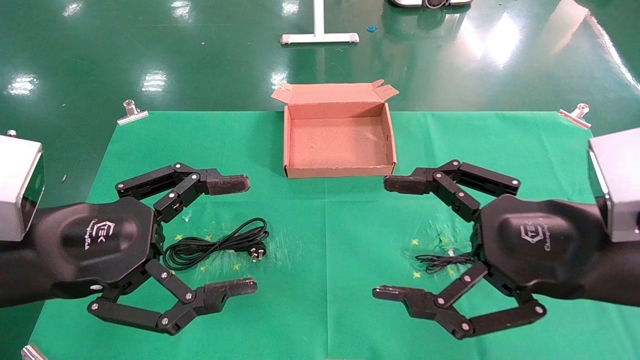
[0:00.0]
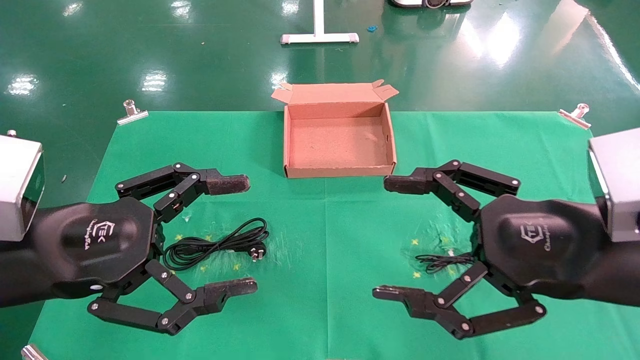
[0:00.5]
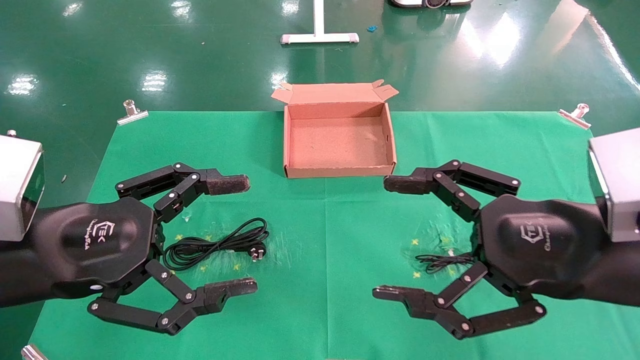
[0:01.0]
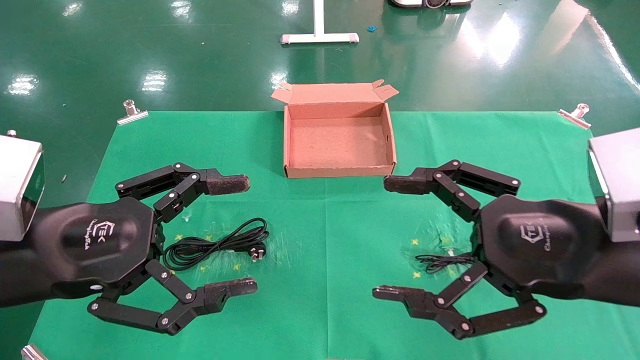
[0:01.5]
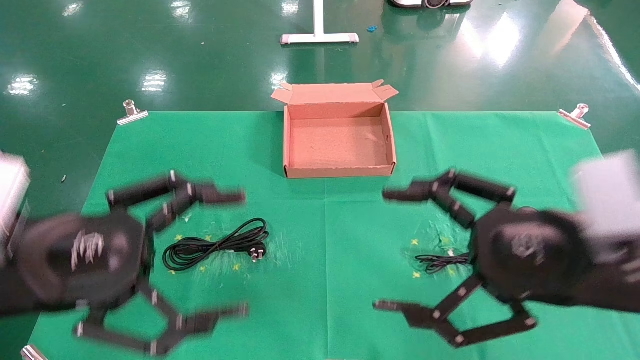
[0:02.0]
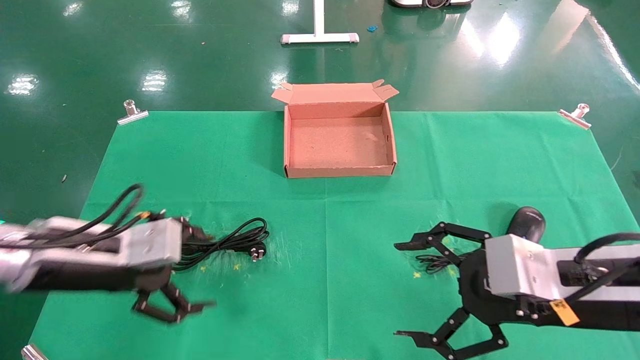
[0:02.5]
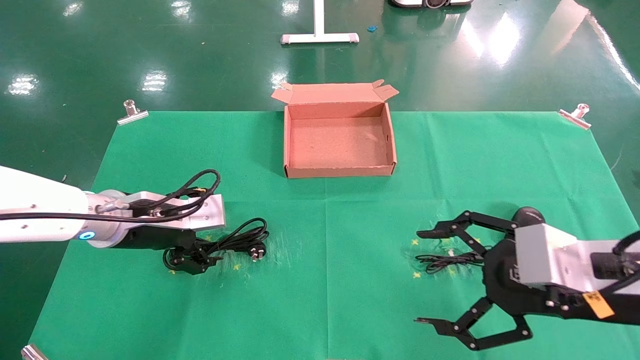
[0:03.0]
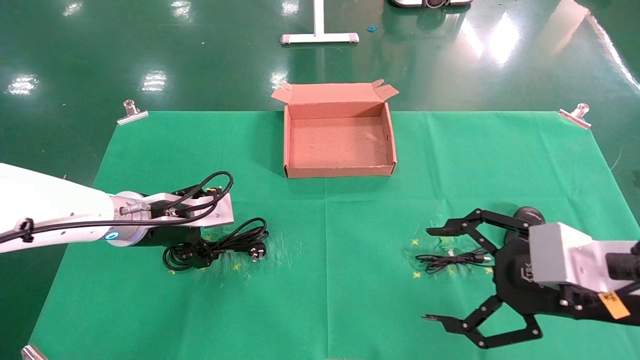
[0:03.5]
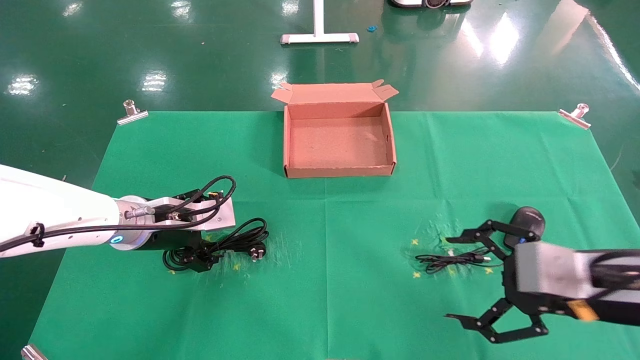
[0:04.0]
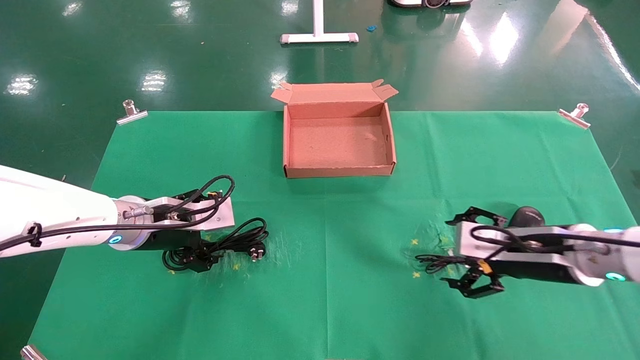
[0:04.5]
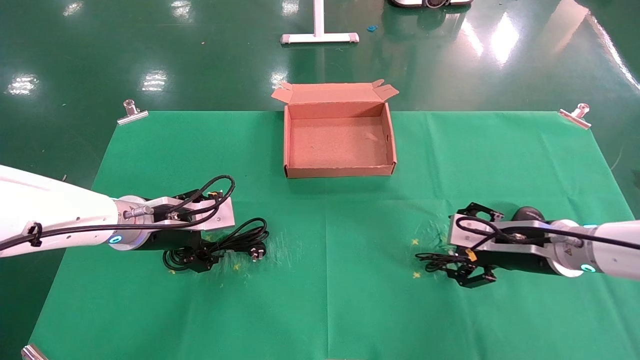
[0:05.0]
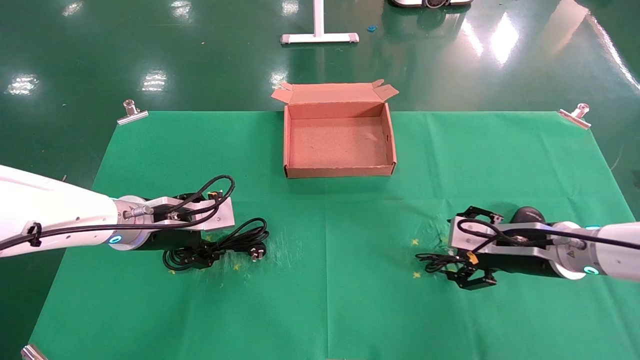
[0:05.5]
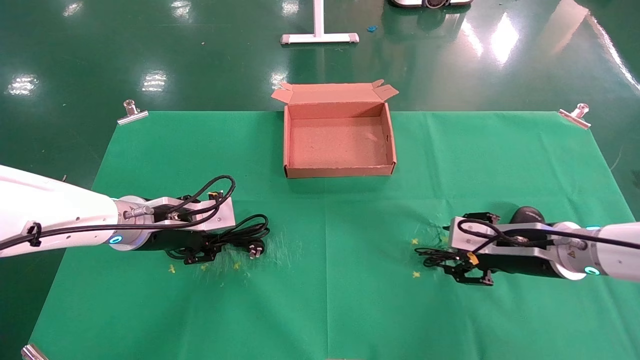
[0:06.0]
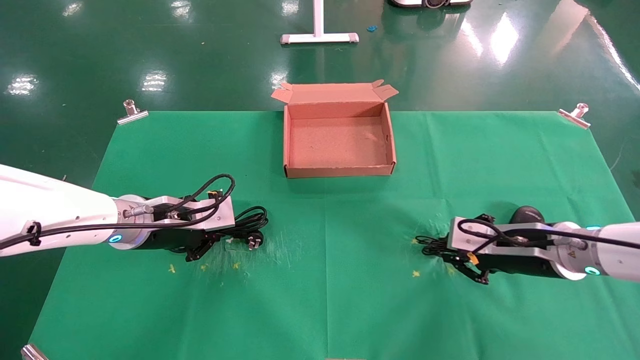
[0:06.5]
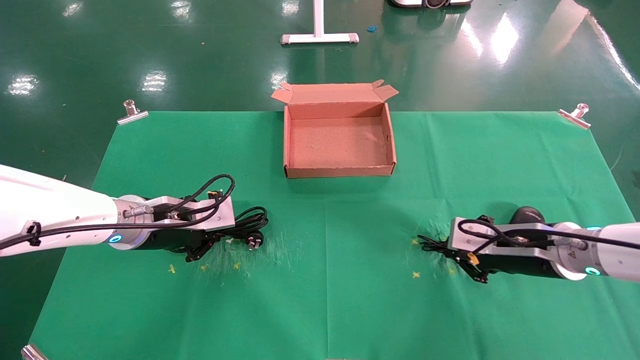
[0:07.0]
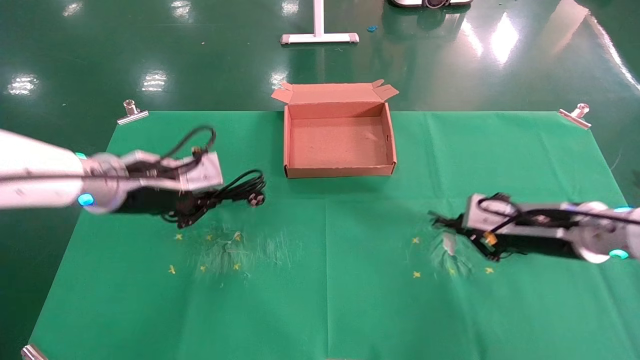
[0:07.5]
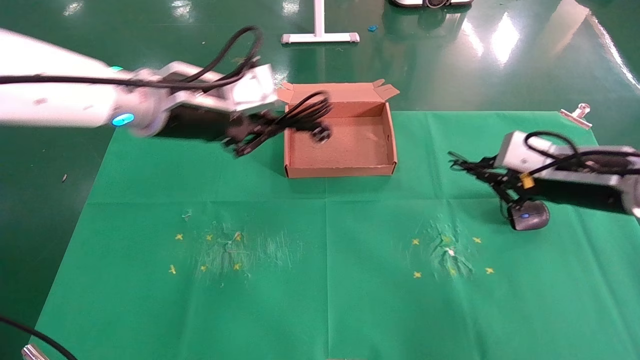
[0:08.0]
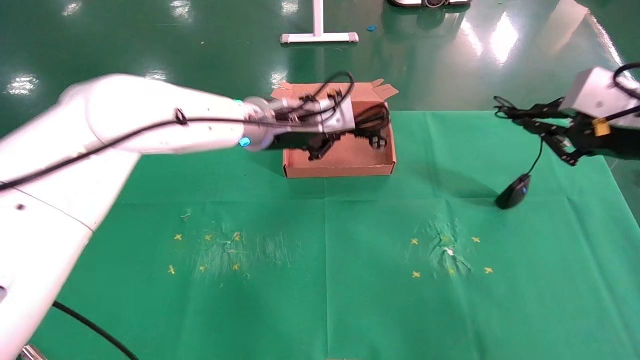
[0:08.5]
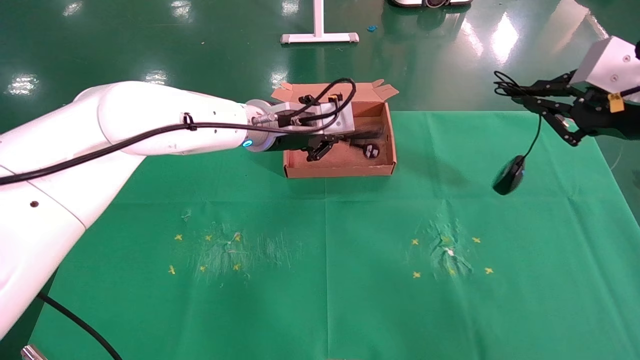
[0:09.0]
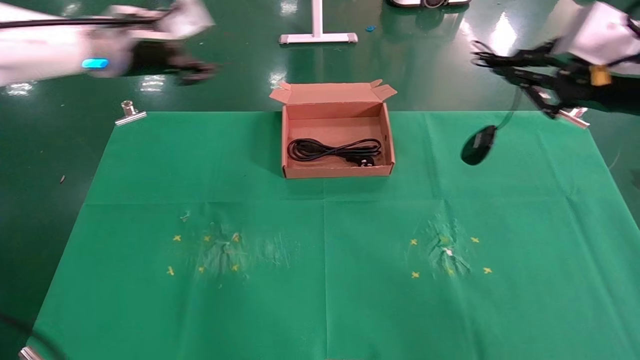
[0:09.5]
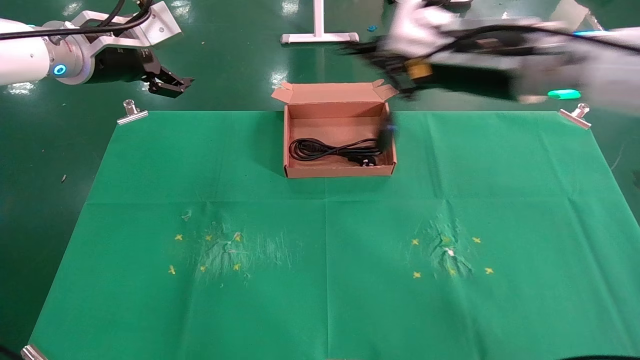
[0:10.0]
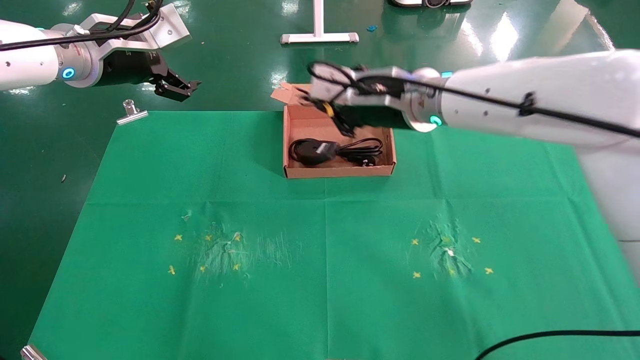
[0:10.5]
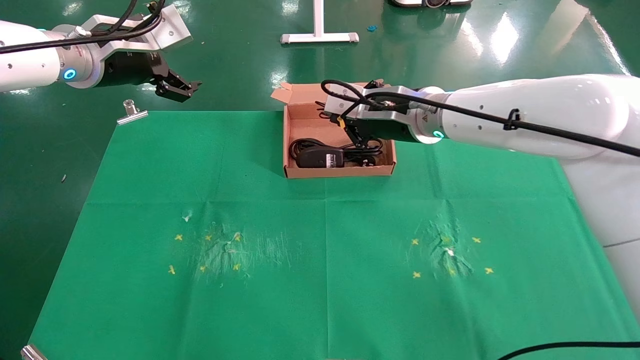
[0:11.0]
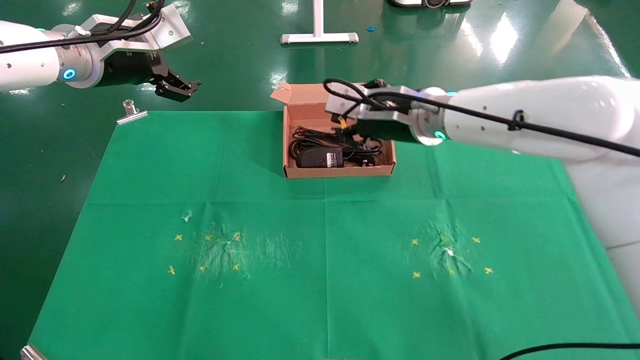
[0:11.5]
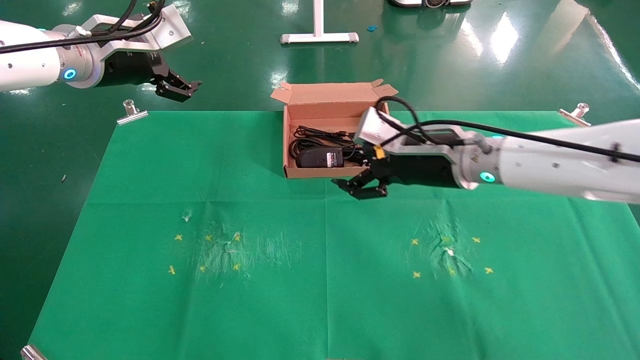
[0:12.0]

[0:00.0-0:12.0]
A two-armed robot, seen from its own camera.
Task of the whole recording: grasp data cable left put into box grasp mouse right put into box.
Step, 0:02.0 to 0:06.5: Simultaneously pick up the mouse and power cord from the accessory packaging area.
Step, 0:07.0 to 0:11.0: Place the mouse and power cord into the box.
0:00.0 to 0:02.0: There are only small adjustments of the grippers.
0:02.0 to 0:04.0: The left gripper moves forward, about 15 cm, while the right gripper goes some 10 cm to the right and downward.
0:04.0 to 0:06.0: The right gripper travels forward by approximately 10 cm. The left gripper closes its fingers.
0:06.0 to 0:08.0: The left gripper is displaced upward and to the right by some 20 cm, and closes up, while the right gripper heads upward, covering some 10 cm, and closes its fingers.
0:08.0 to 0:10.0: The right gripper heads to the left and upward, covering approximately 20 cm, while the left gripper moves to the left, forward and upward, some 15 cm, and opens up.
0:10.0 to 0:12.0: The right gripper travels downward by about 10 cm, and opens up.

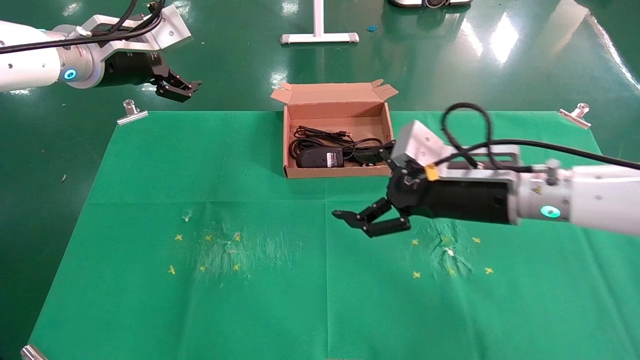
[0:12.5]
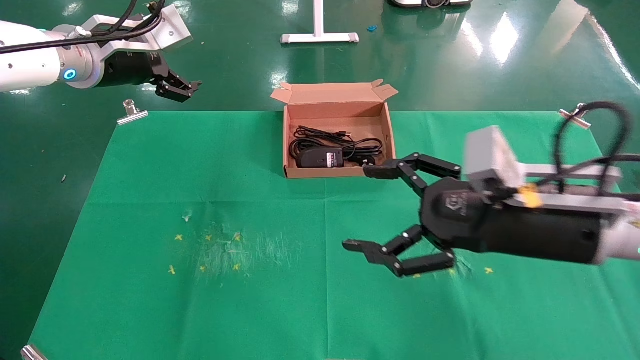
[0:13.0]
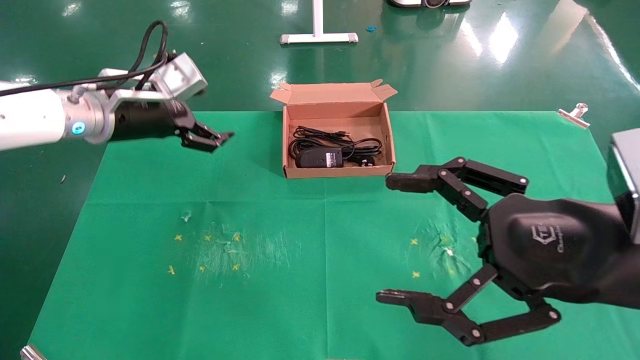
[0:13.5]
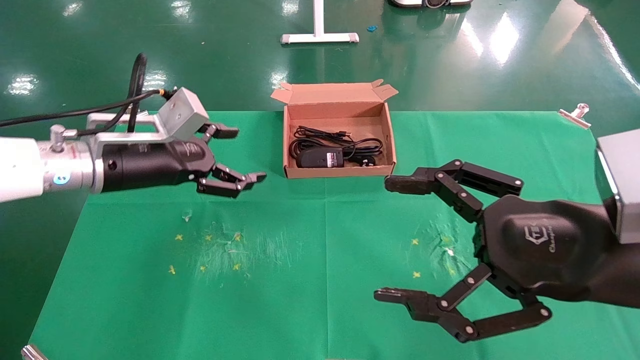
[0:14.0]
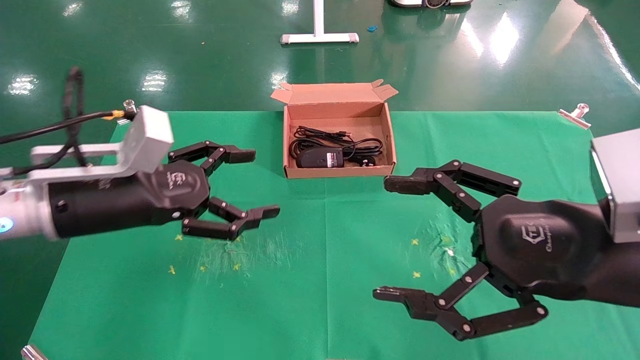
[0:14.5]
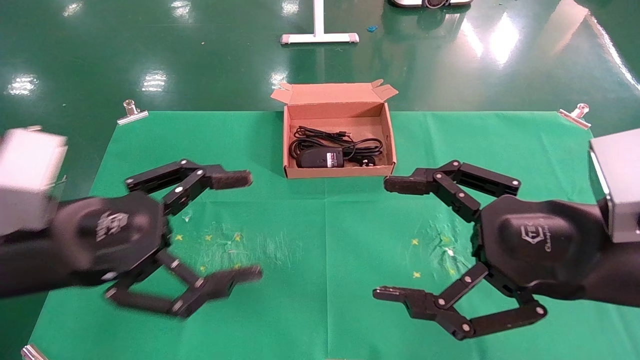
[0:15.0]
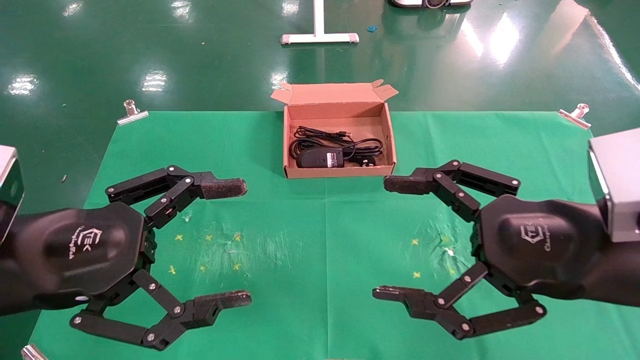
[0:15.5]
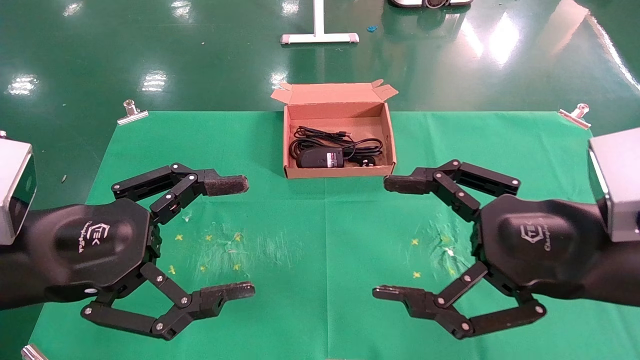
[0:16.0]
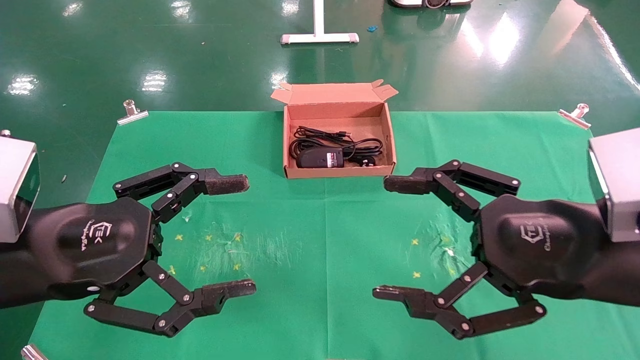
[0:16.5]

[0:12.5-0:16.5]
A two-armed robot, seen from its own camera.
Task of the whole recording: grasp data cable left put into box grasp mouse right put into box.
0:12.5 to 0:14.5: The right gripper is displaced backward and to the right by some 15 cm, while the left gripper heads backward and downward, covering some 20 cm.
0:14.5 to 0:16.5: The left gripper moves backward, roughly 10 cm.
